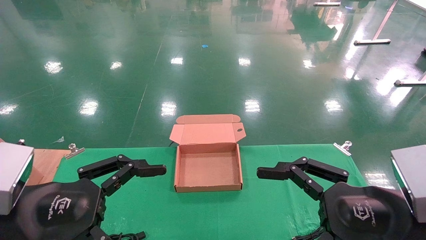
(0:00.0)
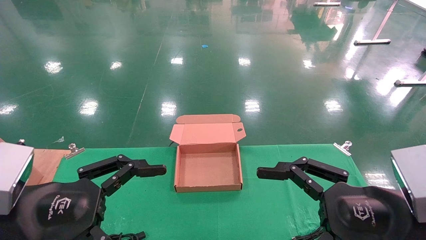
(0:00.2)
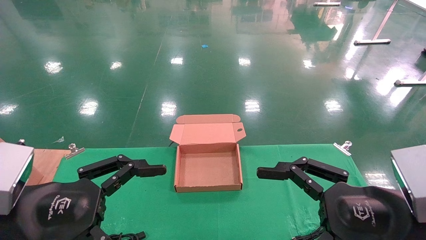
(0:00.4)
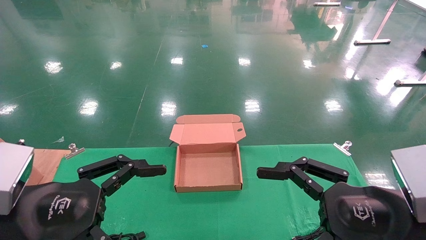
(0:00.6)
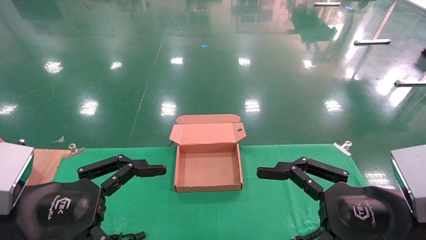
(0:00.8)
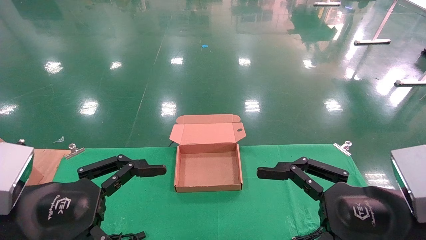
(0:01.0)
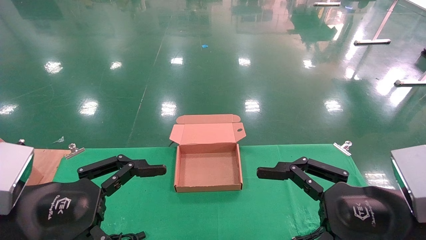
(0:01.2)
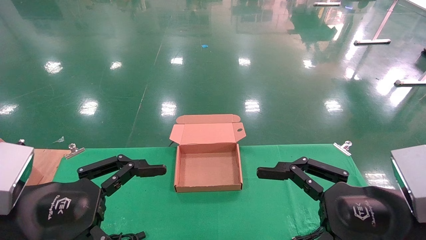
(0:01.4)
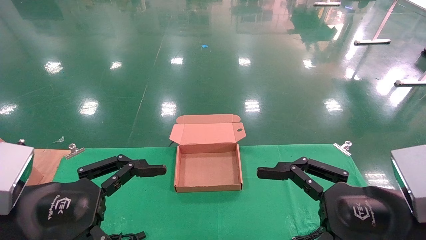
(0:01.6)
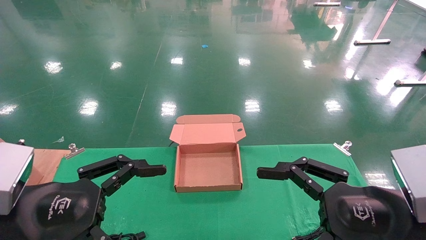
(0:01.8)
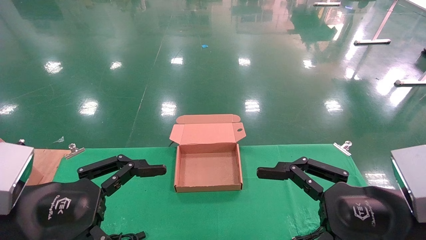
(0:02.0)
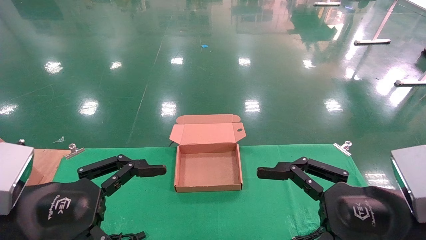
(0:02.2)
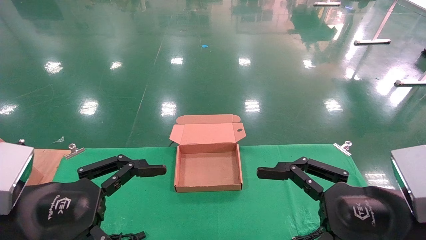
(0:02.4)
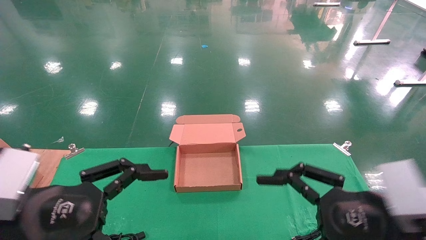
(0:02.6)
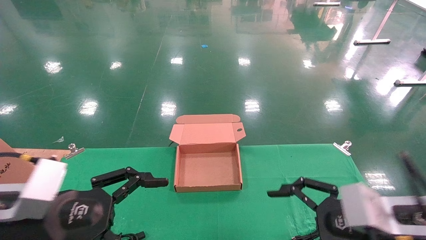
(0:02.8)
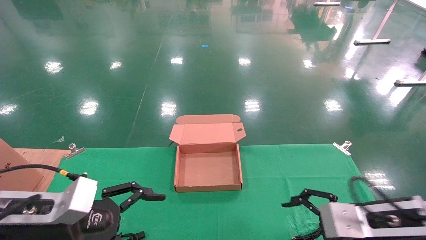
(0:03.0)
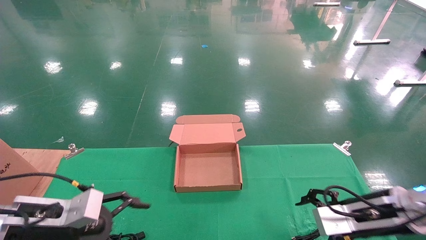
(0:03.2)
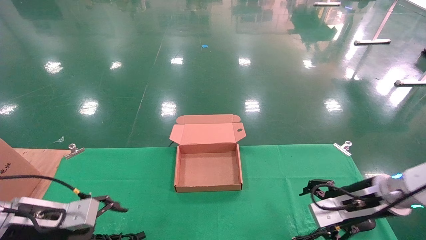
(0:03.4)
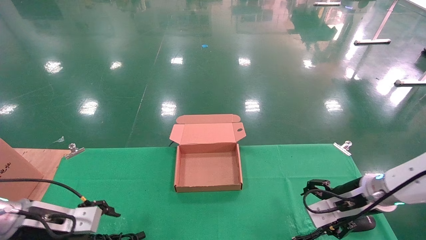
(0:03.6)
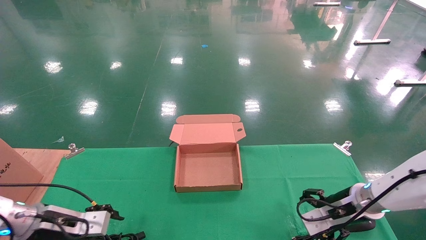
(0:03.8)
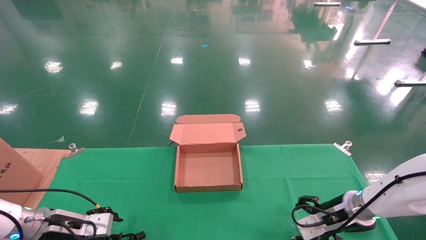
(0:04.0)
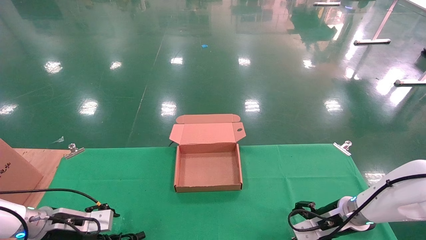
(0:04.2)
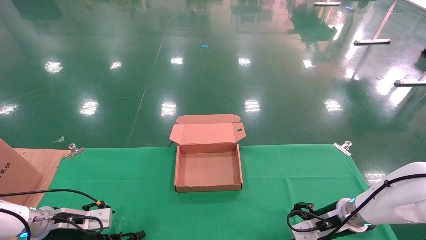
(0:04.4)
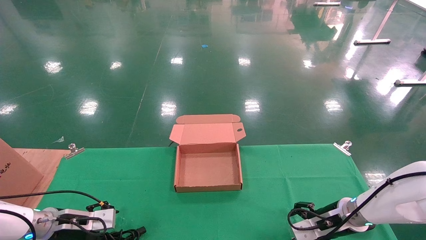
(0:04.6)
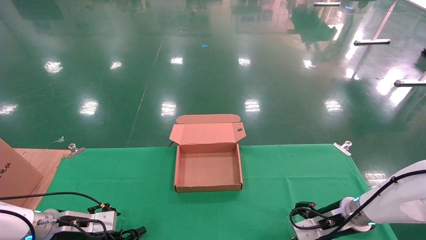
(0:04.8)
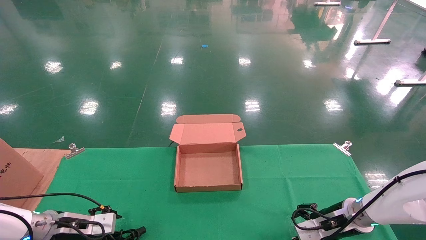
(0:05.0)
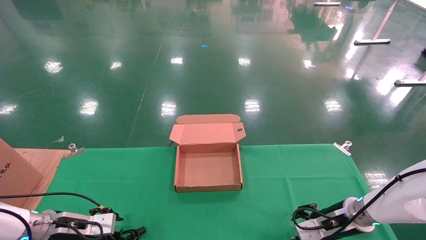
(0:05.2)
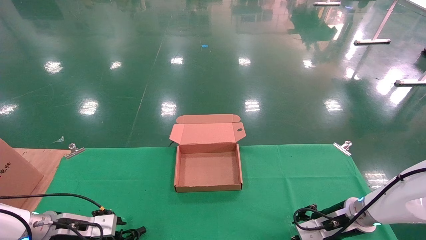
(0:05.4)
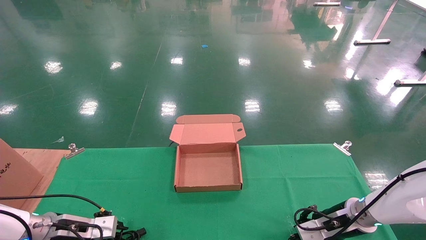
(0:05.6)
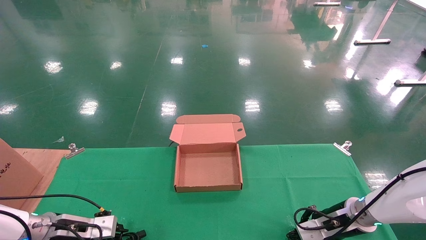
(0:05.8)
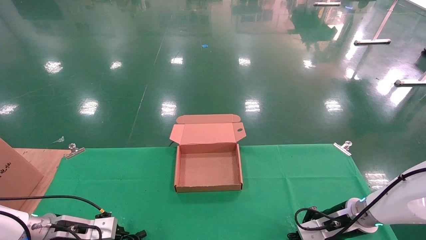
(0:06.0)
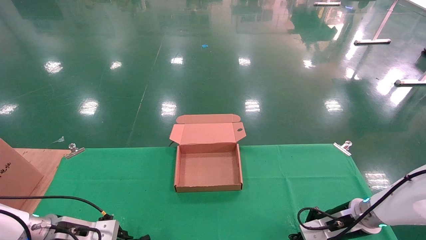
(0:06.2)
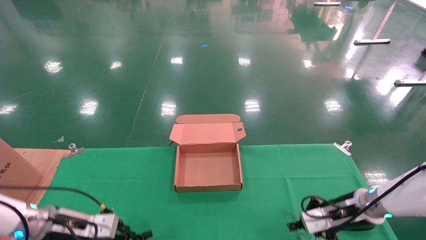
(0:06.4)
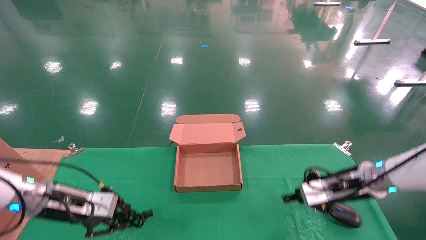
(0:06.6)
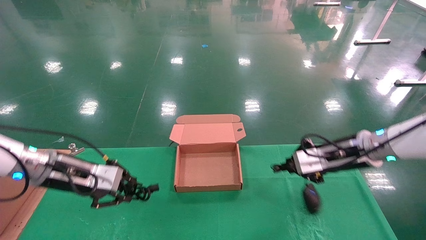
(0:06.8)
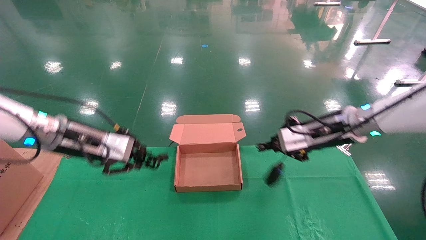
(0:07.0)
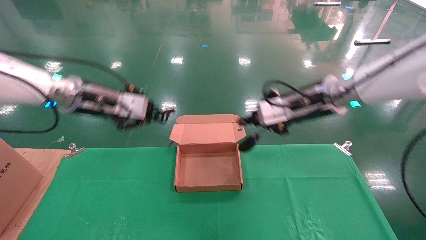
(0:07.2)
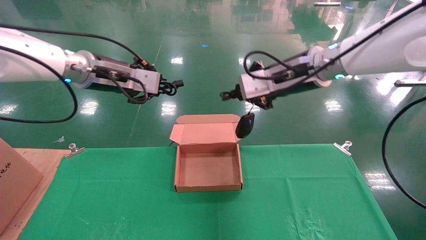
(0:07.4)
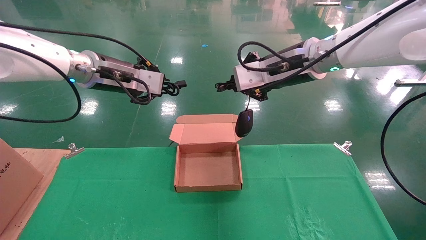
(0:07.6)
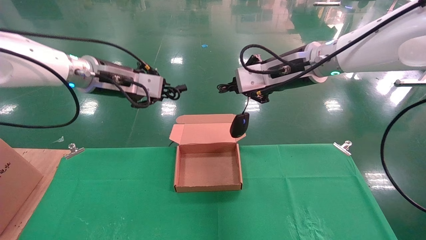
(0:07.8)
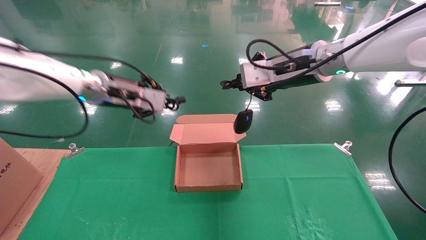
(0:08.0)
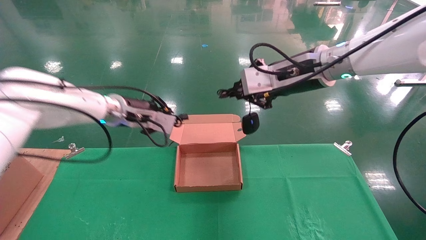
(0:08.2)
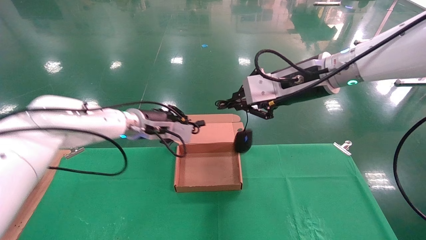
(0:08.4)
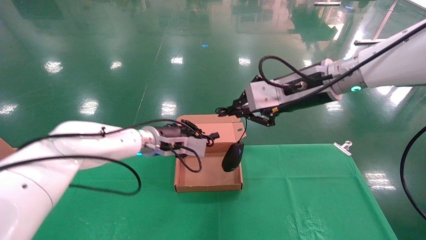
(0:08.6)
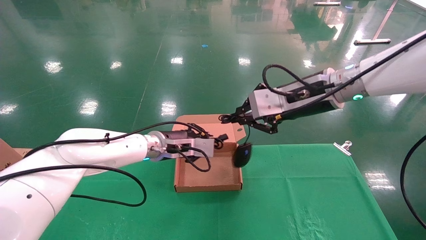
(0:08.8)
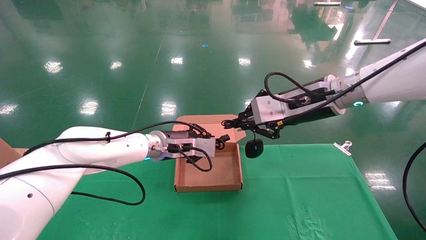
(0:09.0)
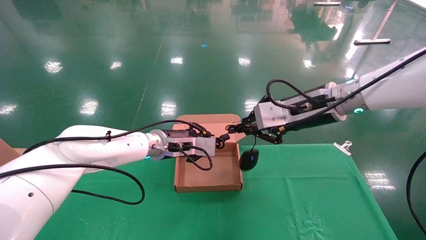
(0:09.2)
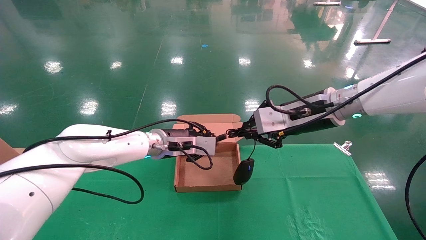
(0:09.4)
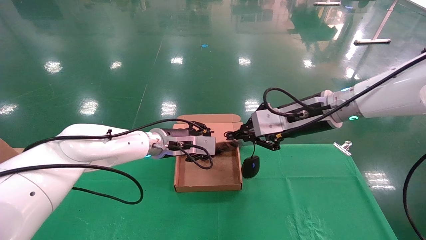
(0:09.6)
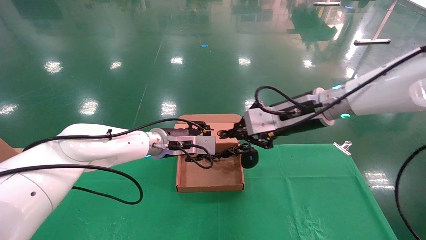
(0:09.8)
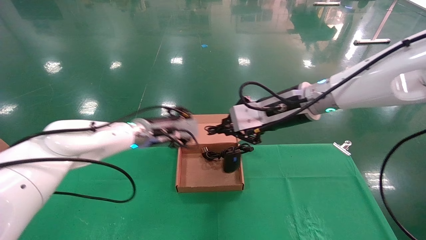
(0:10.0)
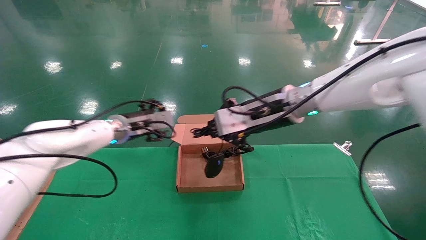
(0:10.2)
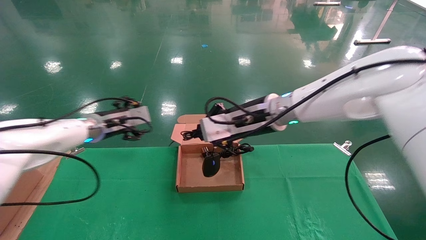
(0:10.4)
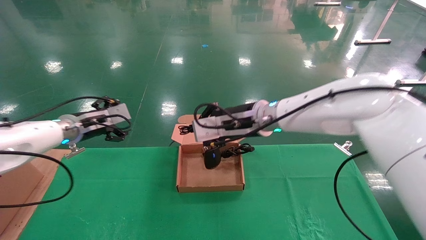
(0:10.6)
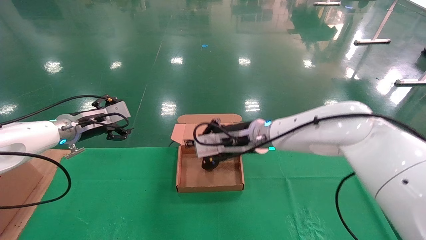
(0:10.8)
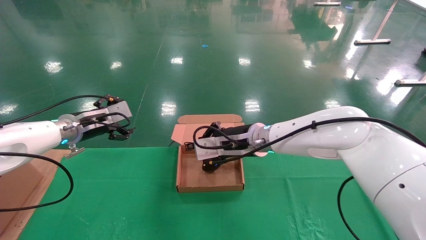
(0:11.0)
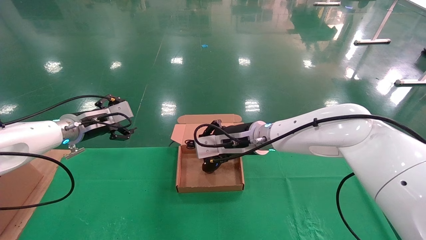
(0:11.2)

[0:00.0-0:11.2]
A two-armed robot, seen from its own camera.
Step, 0:02.2 to 0:06.8: Grab and lift both the mouse and power cord from the accessory packaging area at the same time.
0:00.0 to 0:01.6: Neither gripper changes place.
0:01.6 to 0:03.2: The left gripper goes approximately 15 cm forward, downward and to the left; the right gripper moves forward and downward, roughly 15 cm.
0:03.2 to 0:04.8: The right gripper goes about 15 cm forward and downward. The left gripper travels downward, forward and to the left by about 15 cm.
0:04.8 to 0:06.4: Both grippers travel together upward, about 5 cm. The right gripper closes its fingers, while the left gripper closes its fingers.
0:06.4 to 0:08.0: The left gripper is displaced upward and to the right by some 25 cm. Meanwhile the right gripper shifts some 30 cm upward and to the left.
0:08.0 to 0:09.6: The right gripper is displaced downward by about 5 cm. Meanwhile the left gripper travels downward and to the right by some 15 cm.
0:09.6 to 0:11.2: The right gripper goes some 15 cm to the left, downward and forward. The left gripper travels to the left by roughly 20 cm, and opens its fingers.

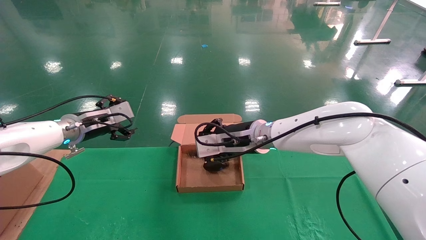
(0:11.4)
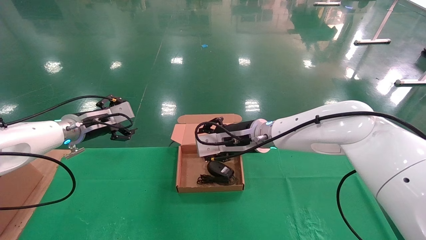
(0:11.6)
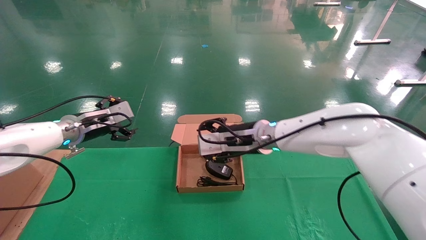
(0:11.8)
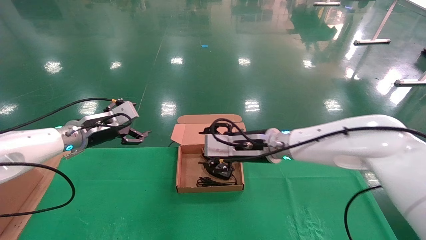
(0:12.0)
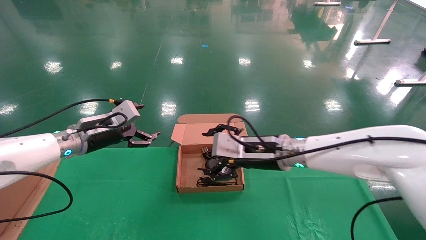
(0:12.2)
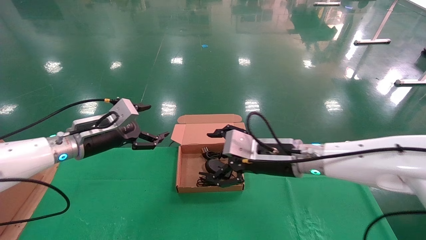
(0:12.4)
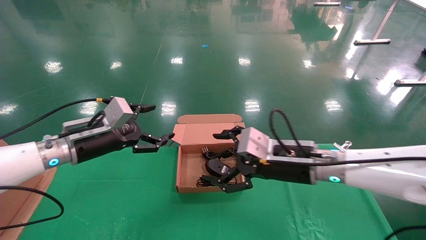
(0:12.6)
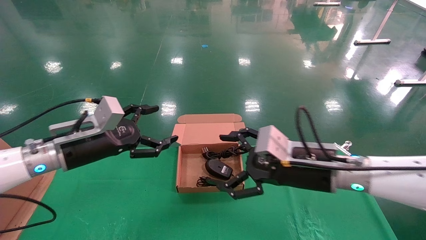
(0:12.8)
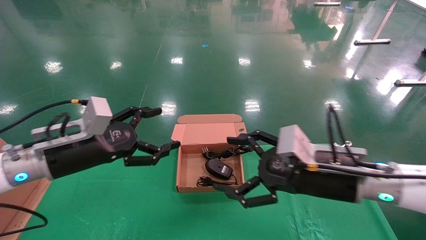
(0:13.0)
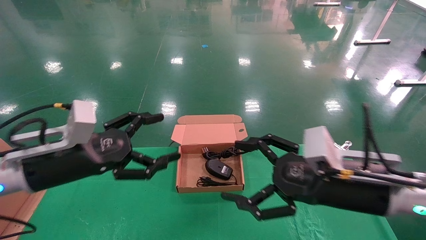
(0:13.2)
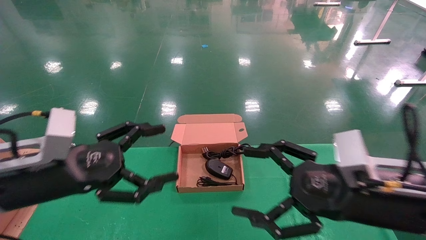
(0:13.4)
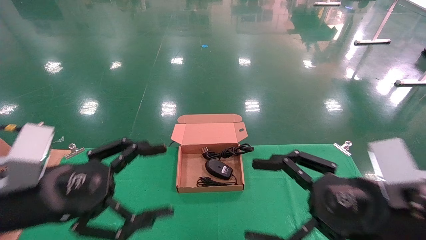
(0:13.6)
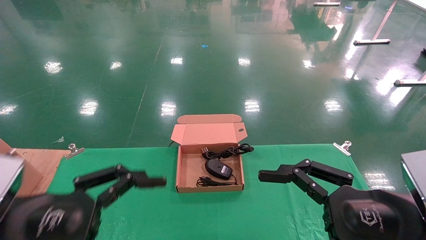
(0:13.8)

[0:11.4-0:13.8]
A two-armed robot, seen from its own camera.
0:11.4 to 0:12.6: The right gripper travels to the right and backward by about 10 cm, and opens its fingers; the left gripper heads backward, covering roughly 10 cm.
0:12.6 to 0:13.8: The left gripper goes some 20 cm backward, while the right gripper goes some 20 cm backward and to the right.

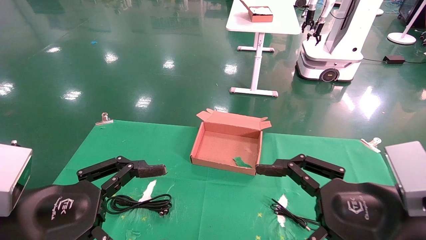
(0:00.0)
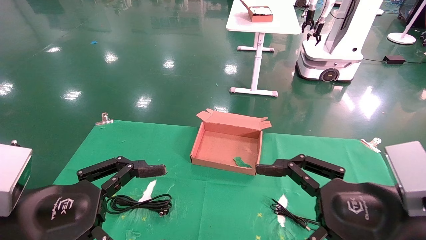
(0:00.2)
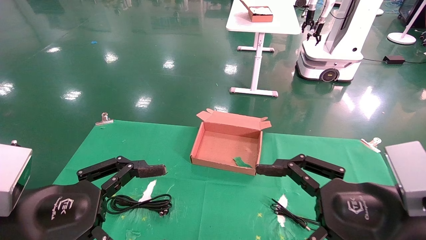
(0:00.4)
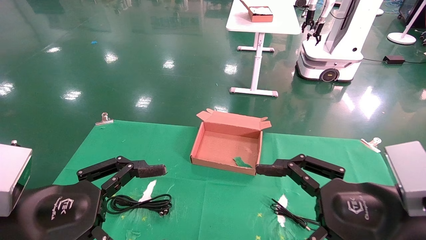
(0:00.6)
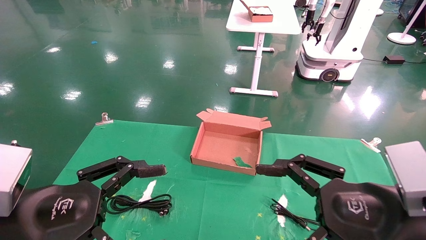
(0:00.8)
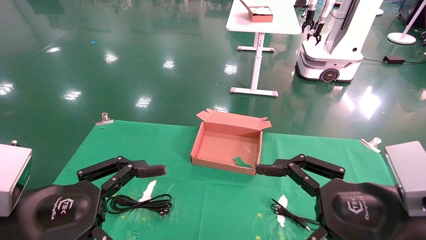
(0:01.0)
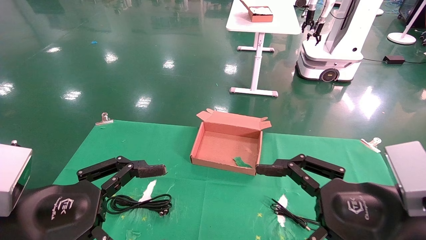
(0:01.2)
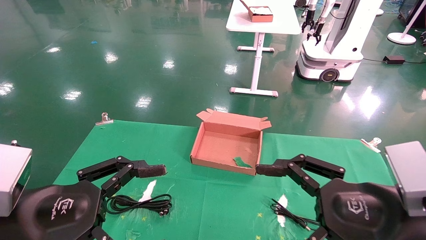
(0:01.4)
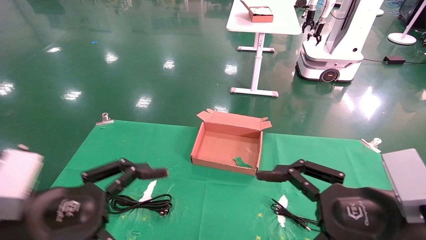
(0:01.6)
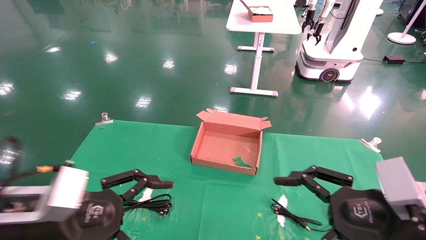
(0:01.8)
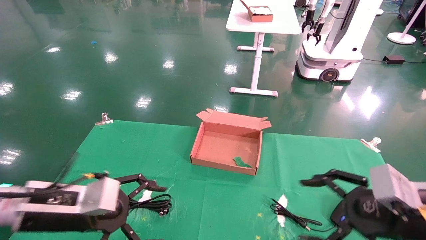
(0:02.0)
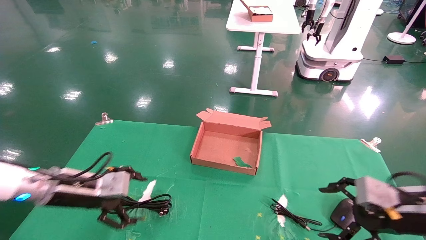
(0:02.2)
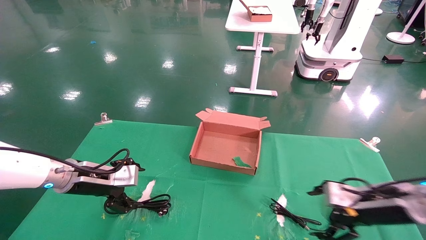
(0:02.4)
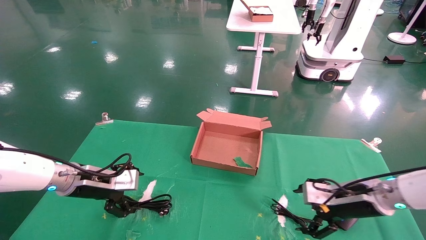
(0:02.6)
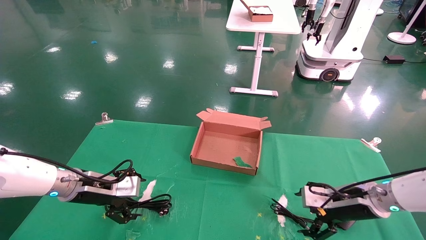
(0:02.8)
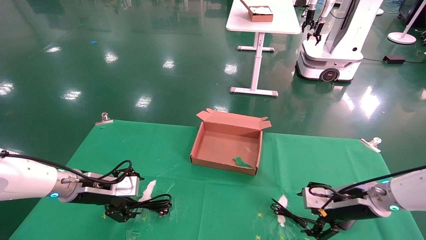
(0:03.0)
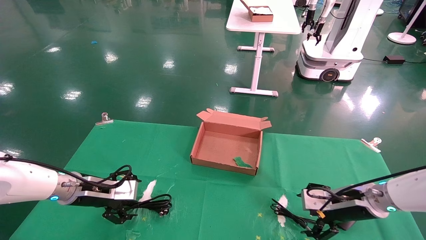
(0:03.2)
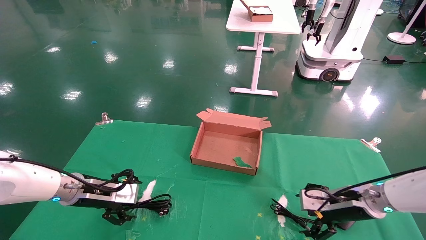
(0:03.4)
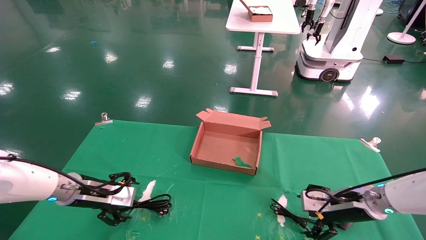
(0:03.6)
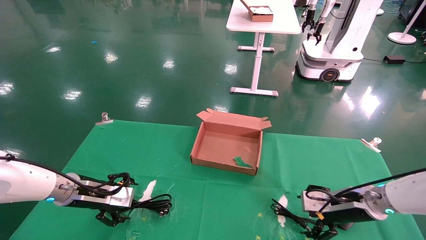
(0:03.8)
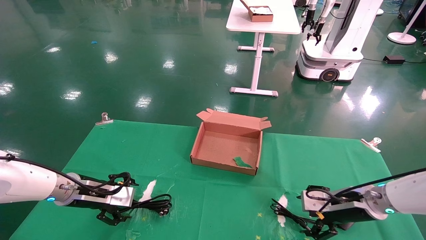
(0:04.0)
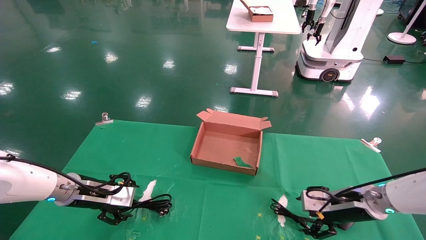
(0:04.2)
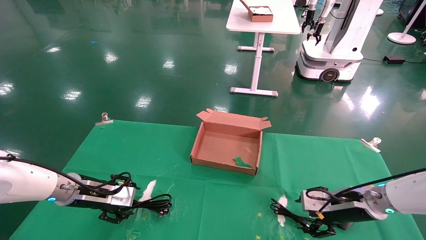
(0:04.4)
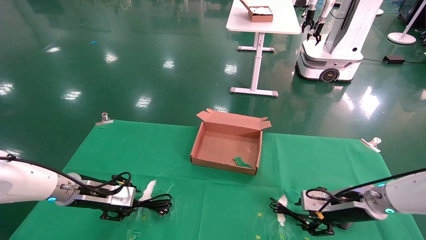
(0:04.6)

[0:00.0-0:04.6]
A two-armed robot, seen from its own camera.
0:00.0 to 0:01.6: The grippers make only small movements.
0:01.6 to 0:03.0: The right gripper goes approximately 25 cm forward and downward, while the left gripper goes about 20 cm forward.
0:03.0 to 0:04.6: The right gripper closes up; the left gripper closes its fingers.
